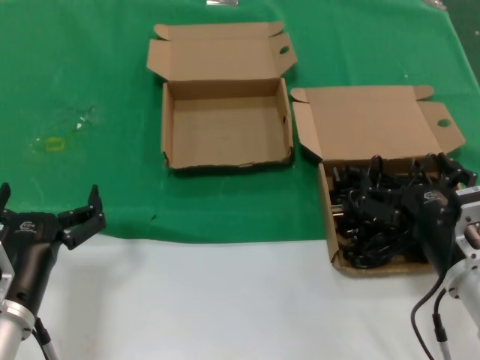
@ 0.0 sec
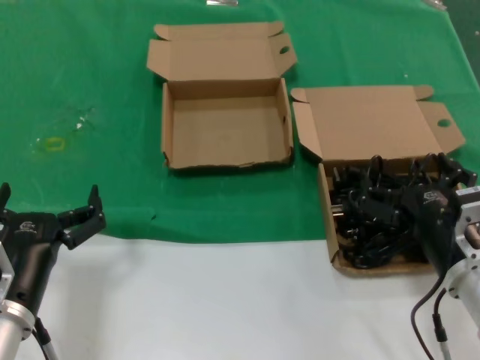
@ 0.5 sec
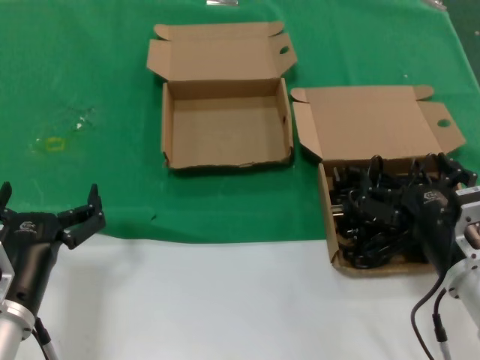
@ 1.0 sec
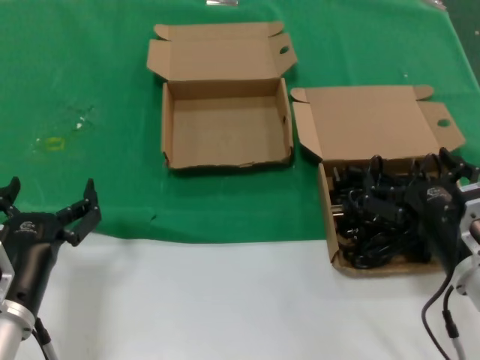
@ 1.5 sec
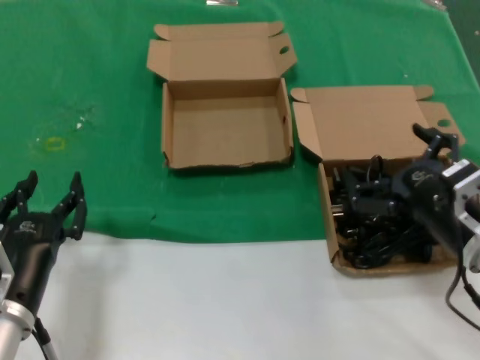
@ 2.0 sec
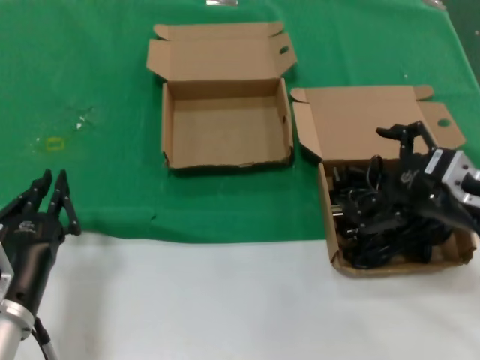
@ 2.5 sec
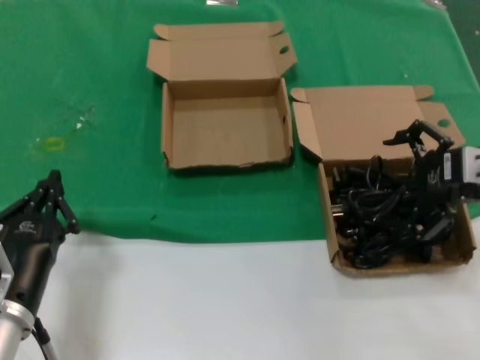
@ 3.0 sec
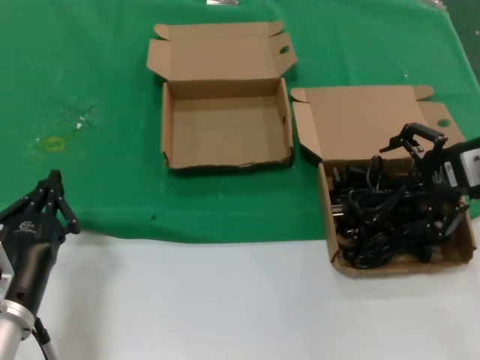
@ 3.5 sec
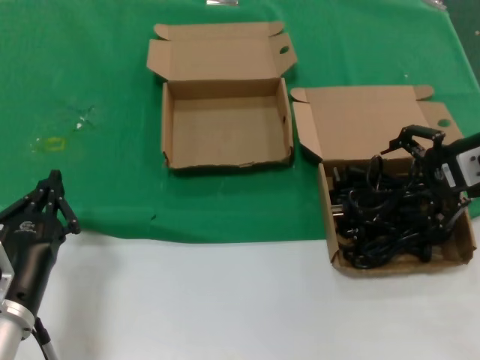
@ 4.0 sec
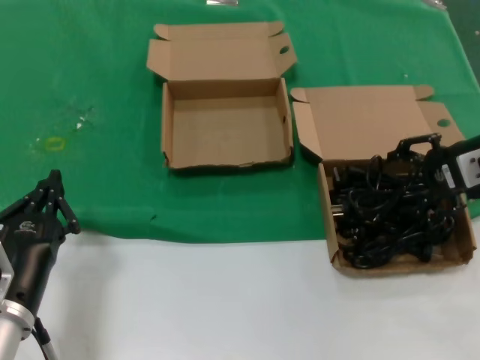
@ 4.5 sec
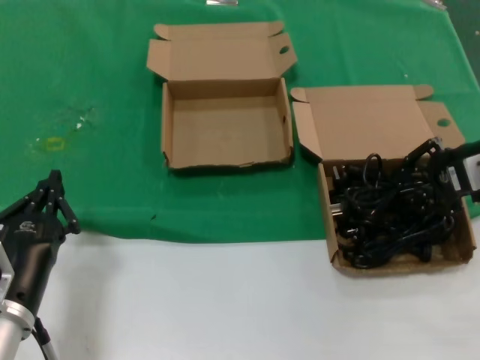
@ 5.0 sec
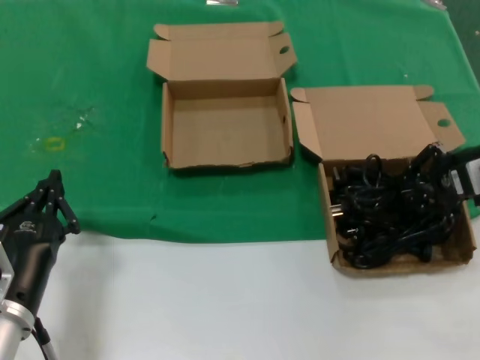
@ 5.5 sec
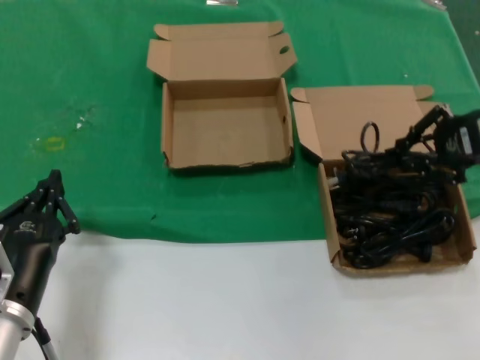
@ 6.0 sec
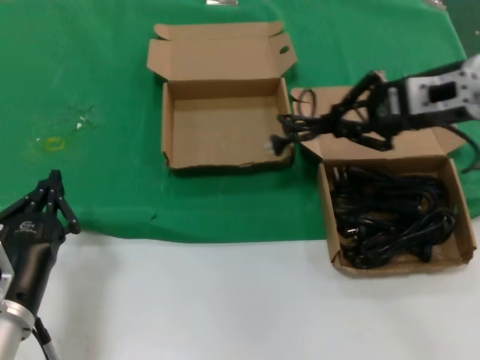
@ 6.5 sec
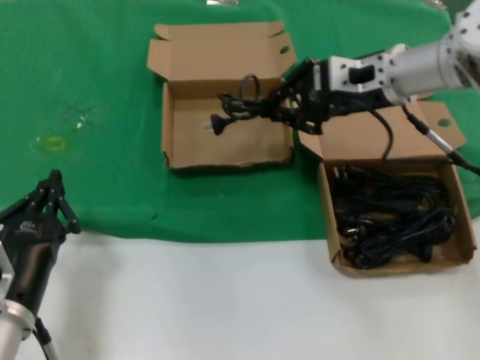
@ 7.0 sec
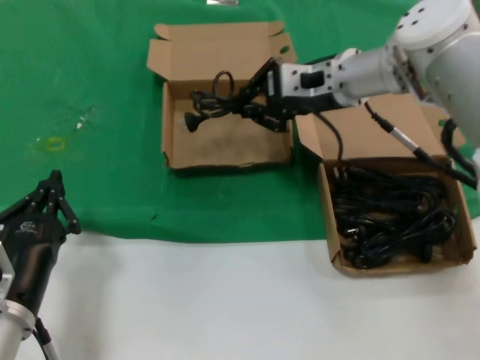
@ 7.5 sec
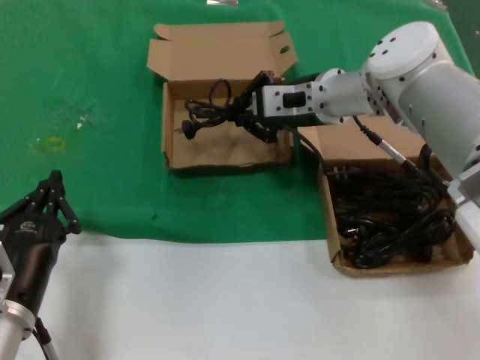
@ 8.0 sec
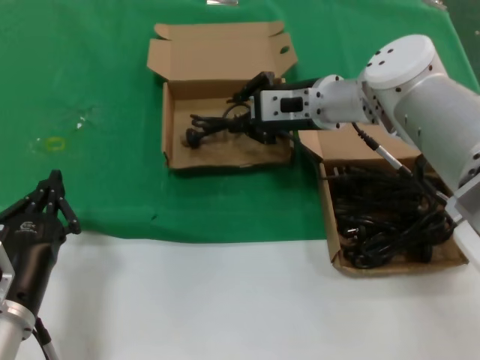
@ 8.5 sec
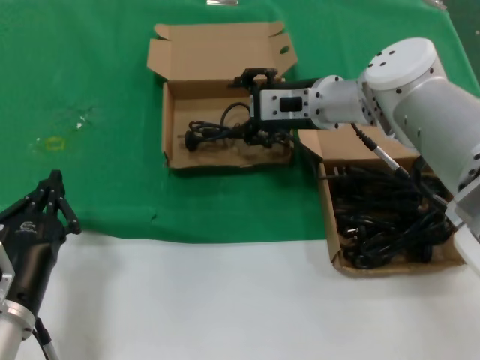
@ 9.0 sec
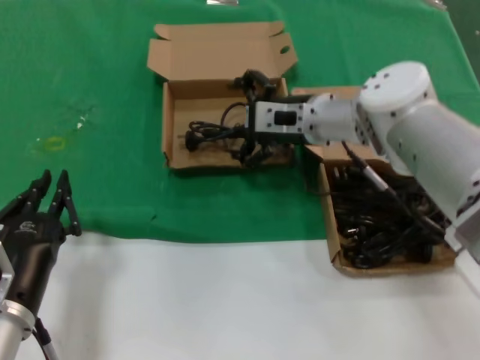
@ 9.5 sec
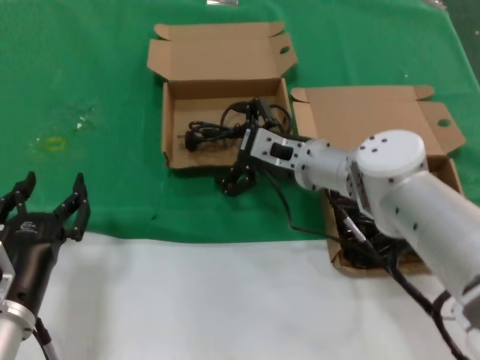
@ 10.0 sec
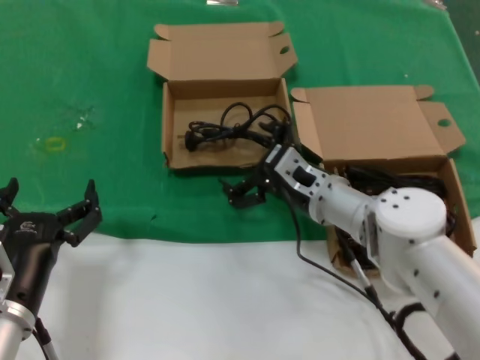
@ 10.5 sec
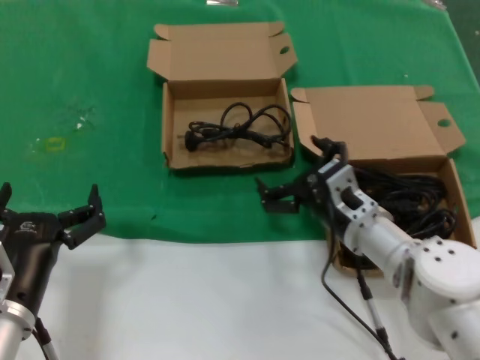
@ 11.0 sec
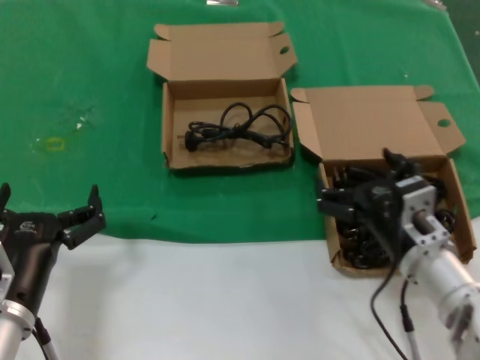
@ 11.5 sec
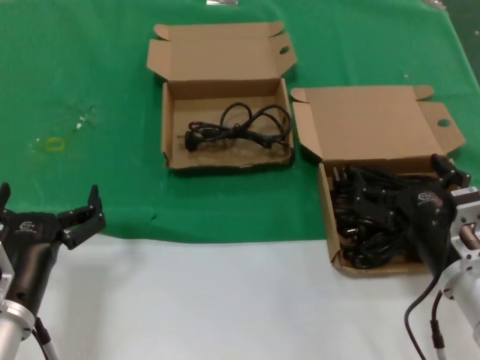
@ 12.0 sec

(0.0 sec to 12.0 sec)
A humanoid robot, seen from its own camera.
Task of the whole recording: take the parts from the box containing them and put them into an empty box.
Step, 0.0 sec - 5.5 sec: Grasp the data cable.
Step, 6.0 sec - 8.5 sec: Place the data cable in the another box.
0.0 sec - 2.0 sec: The right hand shifts by some 5 cm.
2.0 sec - 4.0 sec: The right hand shifts approximately 20 cm forward, upward and to the right.
4.0 sec - 6.0 sec: The hands move only a little.
6.0 sec - 8.0 sec: The right hand travels to the left and forward by some 25 cm.
8.0 sec - 10.0 sec: The right hand heads downward, covering approximately 10 cm.
10.0 sec - 12.0 sec: The right hand moves backward and to the right, some 25 cm.

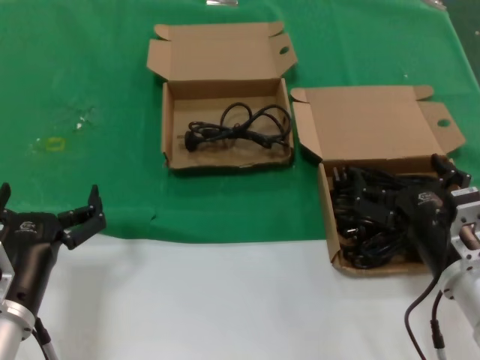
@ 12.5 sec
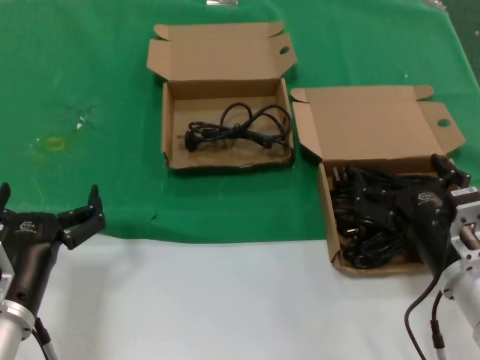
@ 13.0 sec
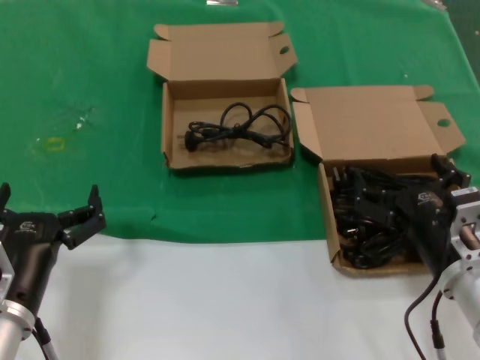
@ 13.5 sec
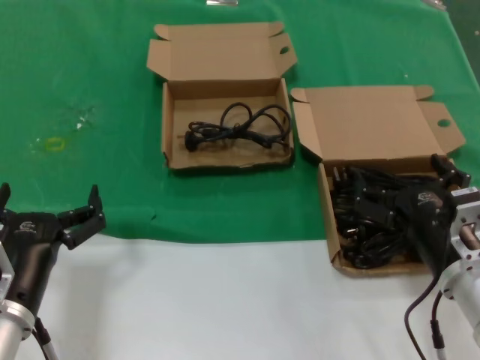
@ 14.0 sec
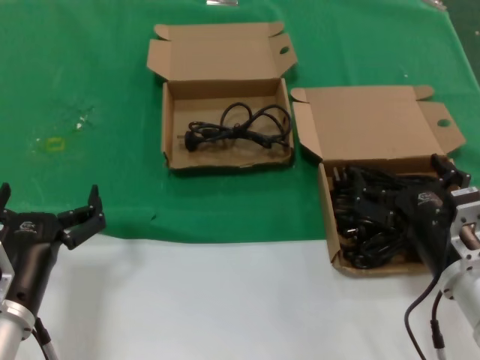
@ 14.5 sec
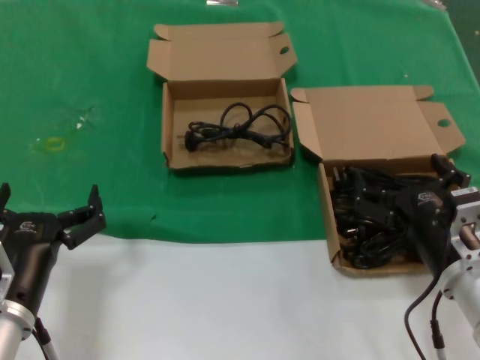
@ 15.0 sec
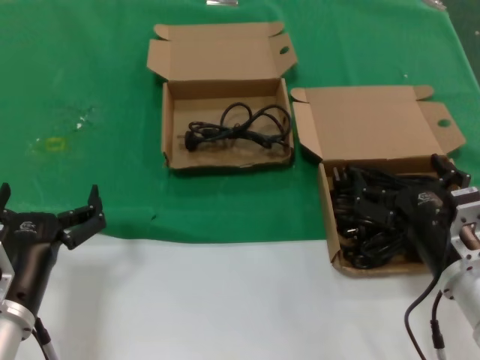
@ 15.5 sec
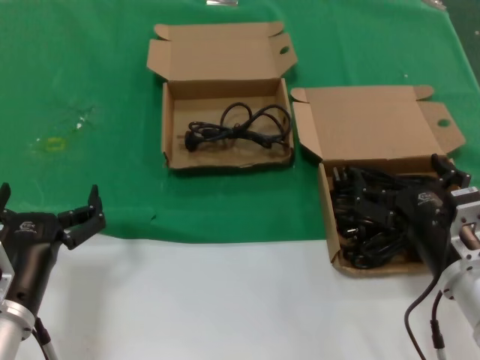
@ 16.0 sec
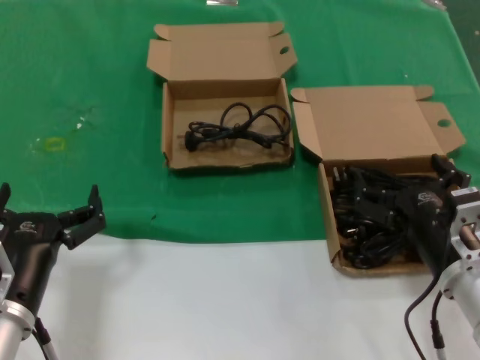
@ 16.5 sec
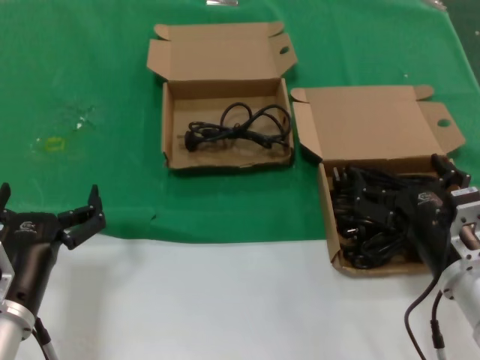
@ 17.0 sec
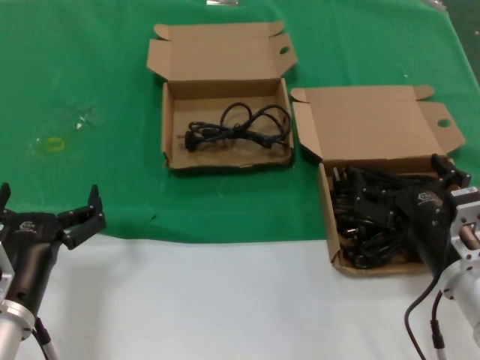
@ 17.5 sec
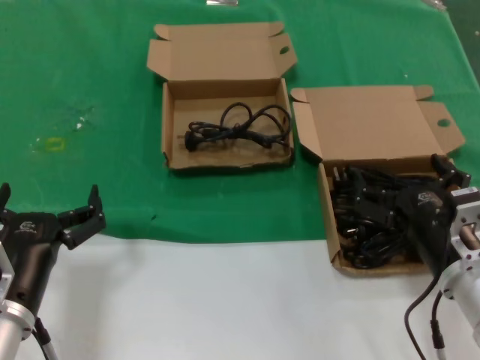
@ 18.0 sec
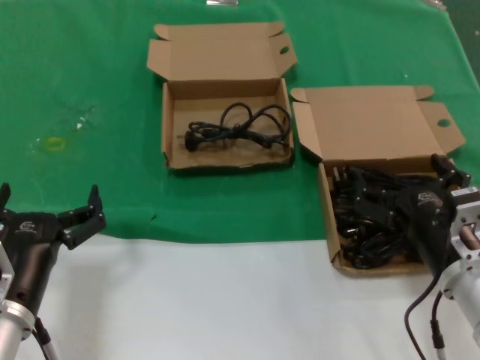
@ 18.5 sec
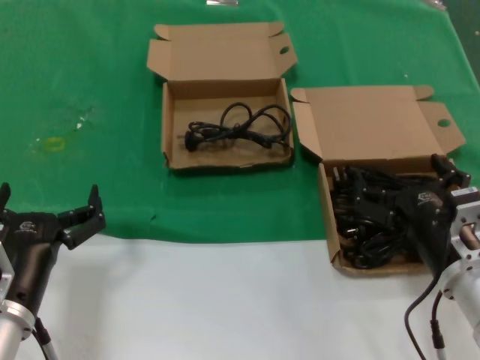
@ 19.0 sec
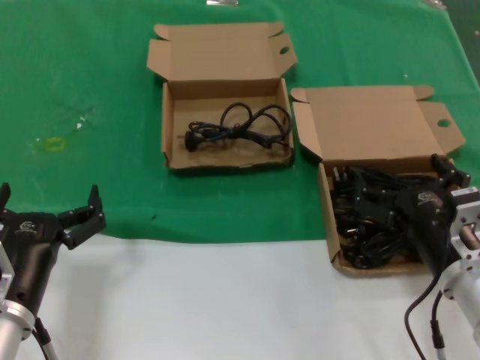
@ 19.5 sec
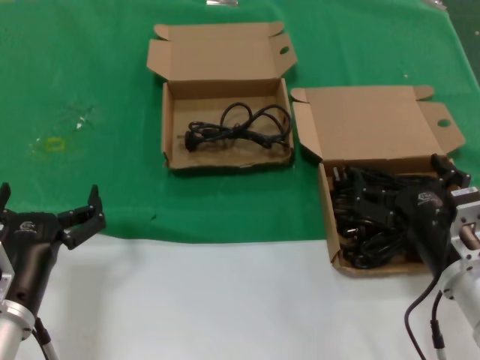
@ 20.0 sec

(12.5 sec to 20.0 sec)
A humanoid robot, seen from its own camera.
Task of the whole recording: take the parts from the box containing them and put them into an empty box.
12.5 sec - 20.0 sec: The two hands keep their place.
